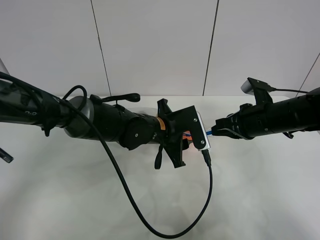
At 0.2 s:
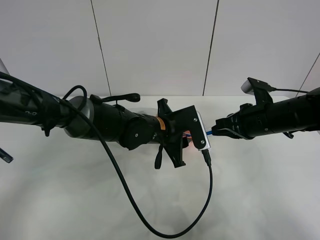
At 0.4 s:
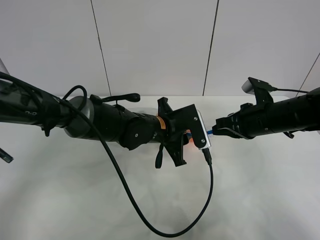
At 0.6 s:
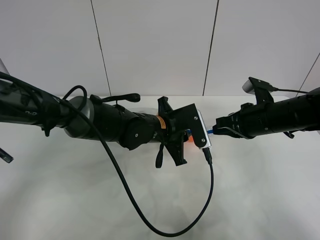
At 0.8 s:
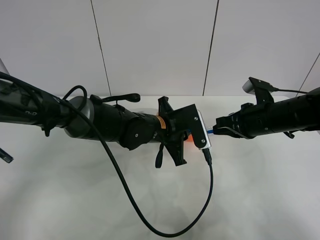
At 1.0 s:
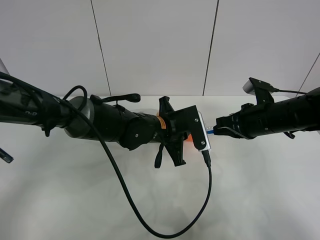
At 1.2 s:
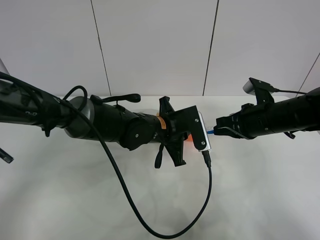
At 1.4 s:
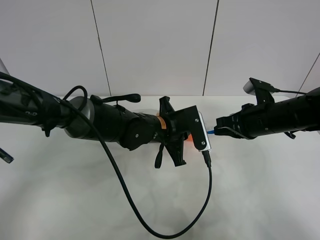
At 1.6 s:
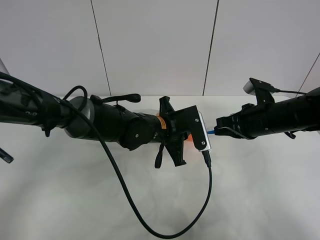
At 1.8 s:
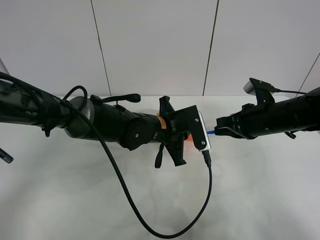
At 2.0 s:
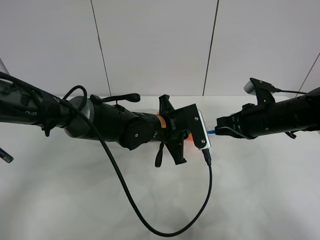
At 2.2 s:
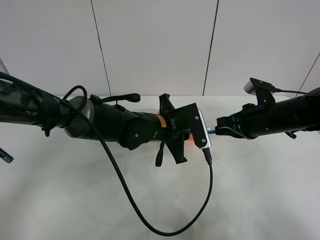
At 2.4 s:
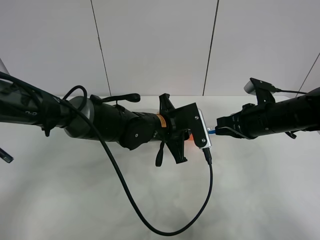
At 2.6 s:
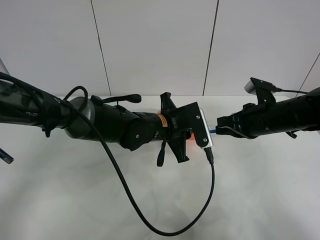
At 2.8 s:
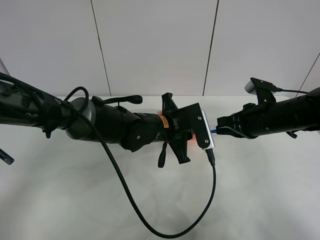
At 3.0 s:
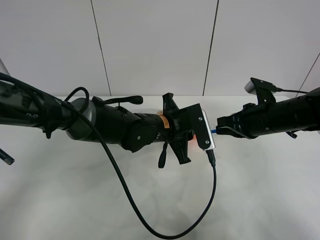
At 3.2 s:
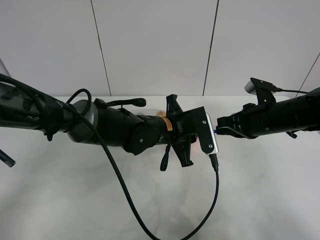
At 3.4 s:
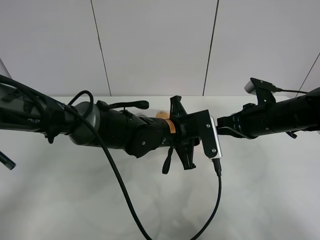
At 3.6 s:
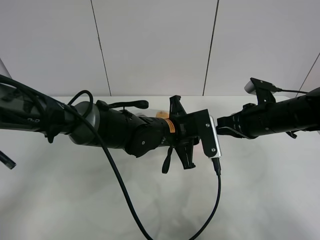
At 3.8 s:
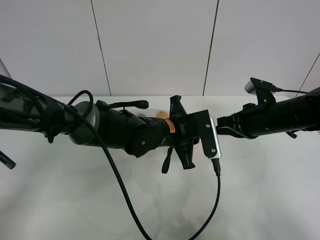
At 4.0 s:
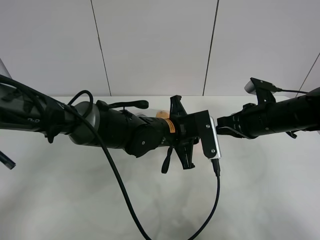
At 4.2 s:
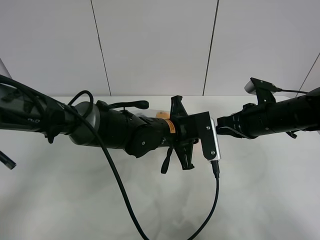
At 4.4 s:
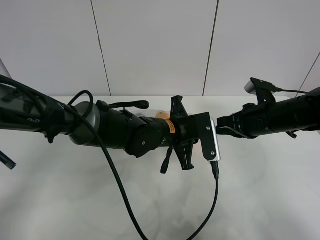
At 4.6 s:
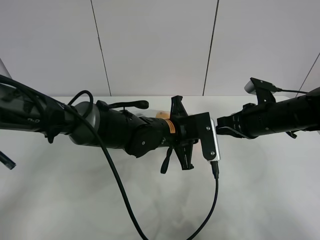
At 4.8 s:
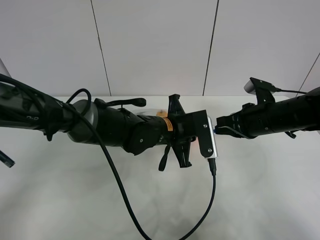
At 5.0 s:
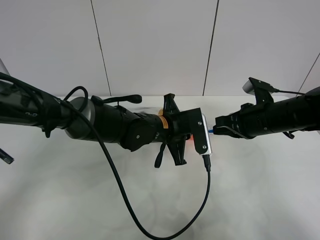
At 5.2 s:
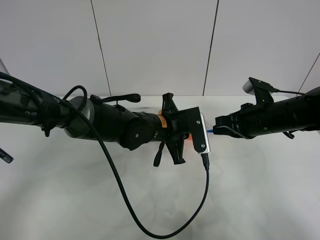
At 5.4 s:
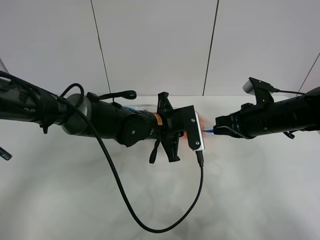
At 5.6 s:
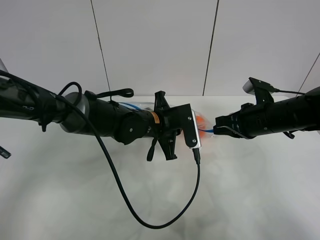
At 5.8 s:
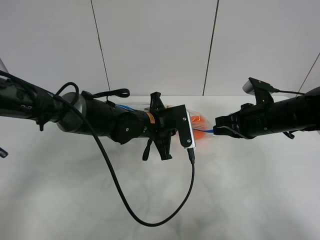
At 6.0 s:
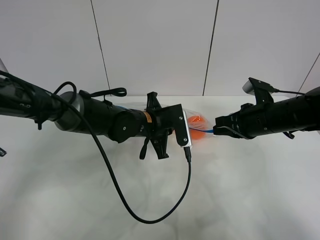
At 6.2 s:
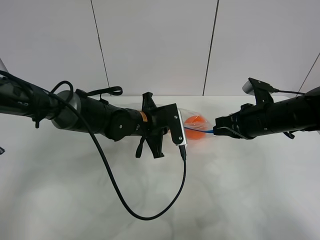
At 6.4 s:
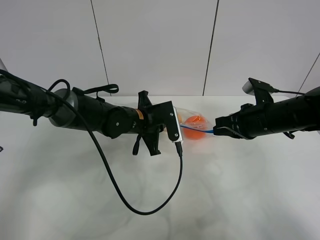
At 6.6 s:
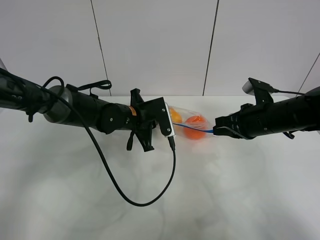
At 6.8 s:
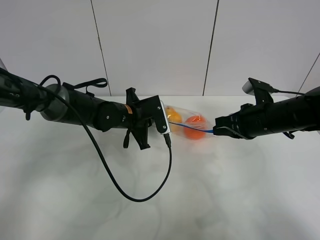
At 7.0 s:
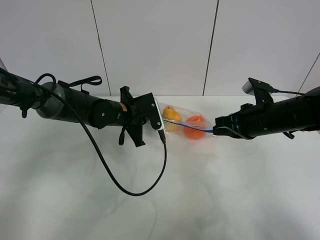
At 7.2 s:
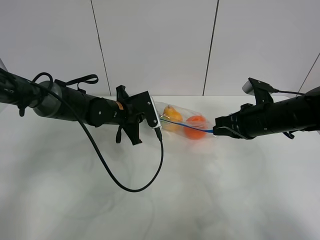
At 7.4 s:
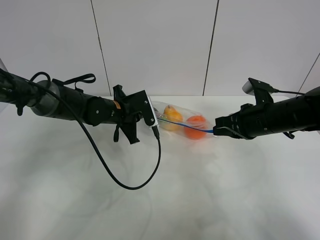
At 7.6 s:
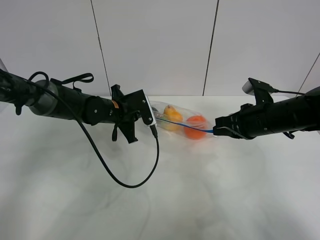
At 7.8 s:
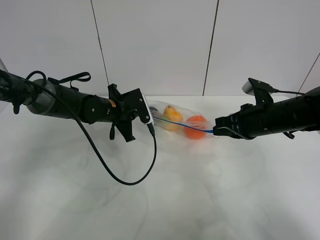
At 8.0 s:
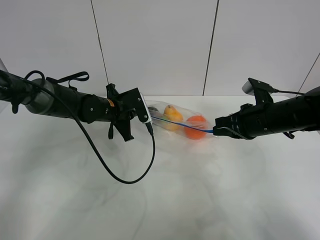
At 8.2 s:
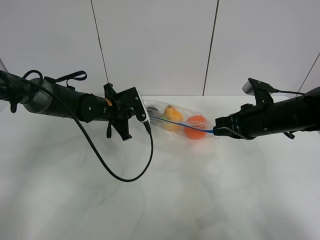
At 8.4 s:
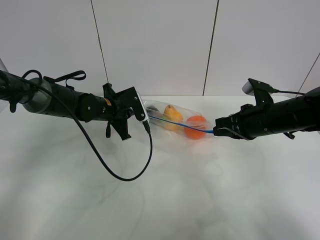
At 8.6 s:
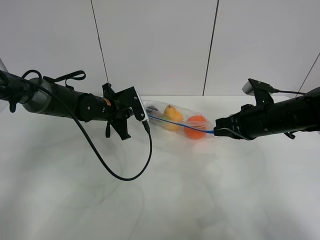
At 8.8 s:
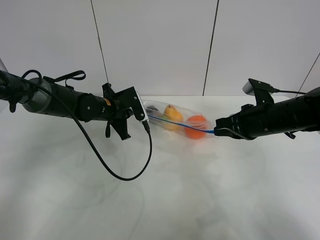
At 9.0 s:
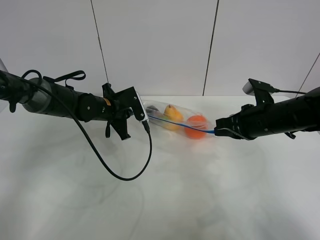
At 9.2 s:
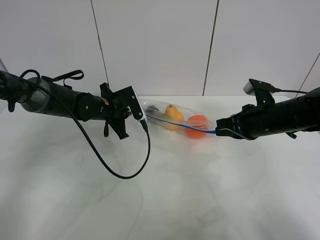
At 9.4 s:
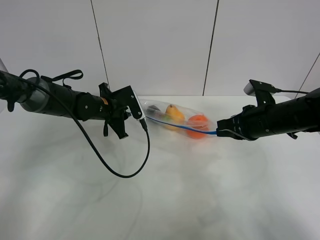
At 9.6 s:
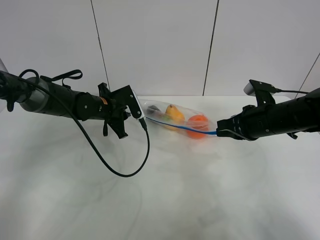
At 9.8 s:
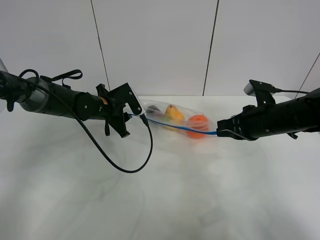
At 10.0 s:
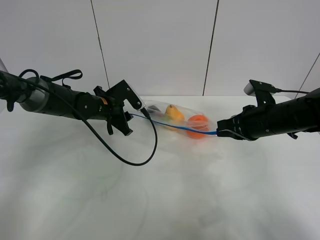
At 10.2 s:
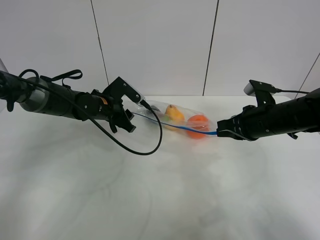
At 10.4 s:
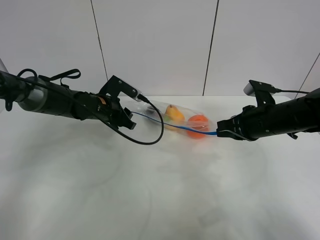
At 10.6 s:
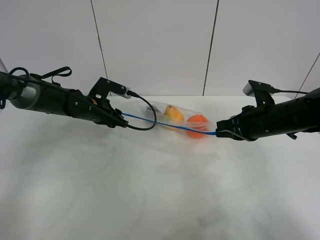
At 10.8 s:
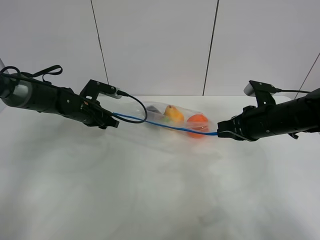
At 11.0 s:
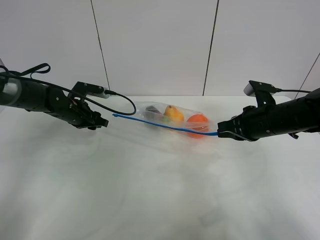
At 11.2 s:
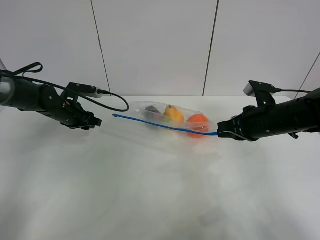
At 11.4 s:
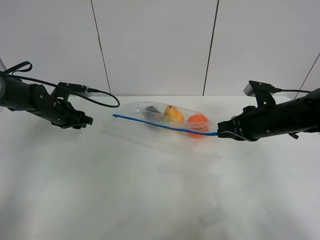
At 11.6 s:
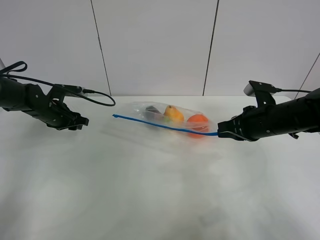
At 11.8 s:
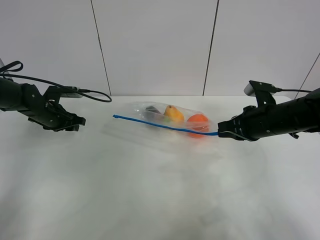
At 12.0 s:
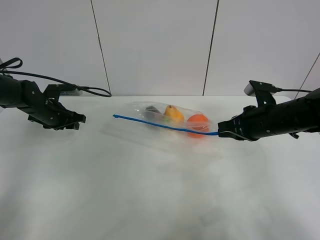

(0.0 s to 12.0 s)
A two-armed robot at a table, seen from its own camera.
Step, 0.0 s - 10.6 s: Pull the fruit bag with left gripper.
0.0 s - 1.6 s: The left gripper closes.
1.6 s - 3.0 s: Neither gripper changes place.
3.0 s - 4.4 s: The grippers make only small movements.
4.4 s - 6.0 s: The left gripper travels to the left by some 5 cm.
6.0 s - 7.6 s: The left gripper moves to the left, approximately 10 cm.
7.6 s - 9.0 s: The grippers make only small movements.
9.0 s - 10.4 s: The left gripper opens up.
10.4 s - 12.0 s: The left gripper is displaced to the left by approximately 15 cm.

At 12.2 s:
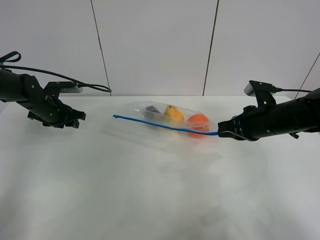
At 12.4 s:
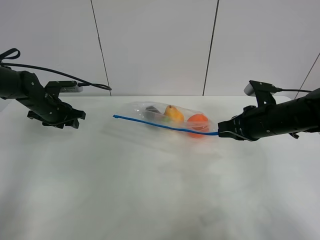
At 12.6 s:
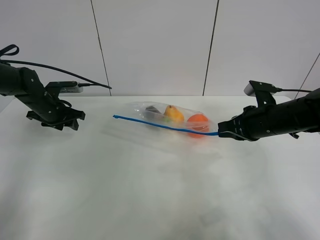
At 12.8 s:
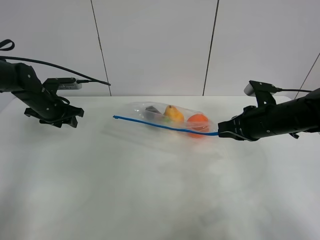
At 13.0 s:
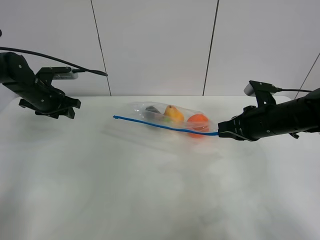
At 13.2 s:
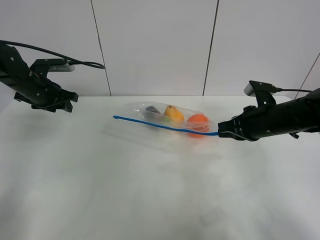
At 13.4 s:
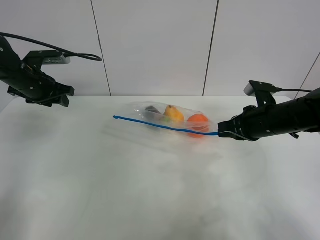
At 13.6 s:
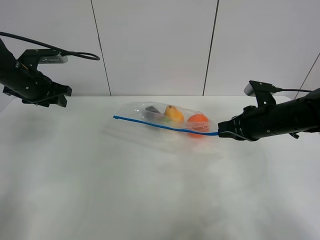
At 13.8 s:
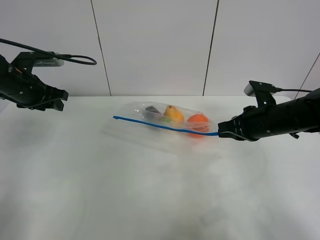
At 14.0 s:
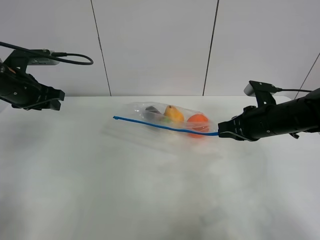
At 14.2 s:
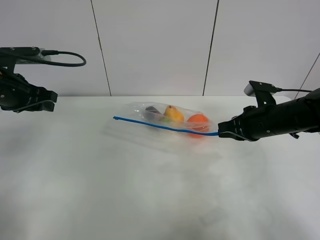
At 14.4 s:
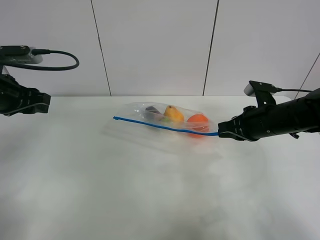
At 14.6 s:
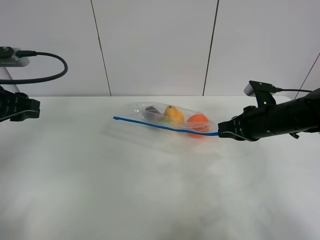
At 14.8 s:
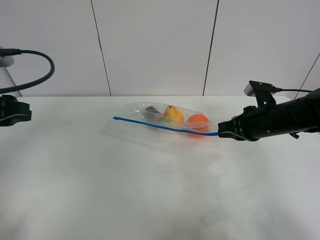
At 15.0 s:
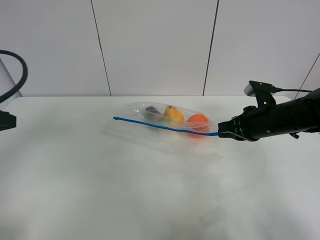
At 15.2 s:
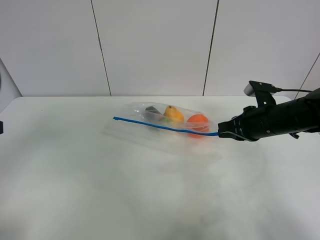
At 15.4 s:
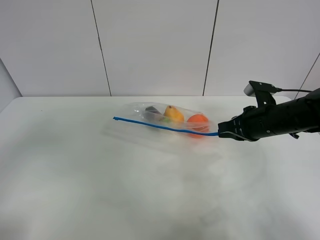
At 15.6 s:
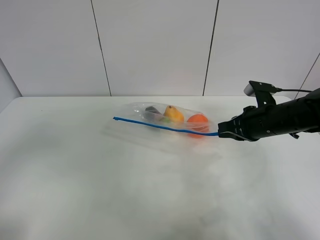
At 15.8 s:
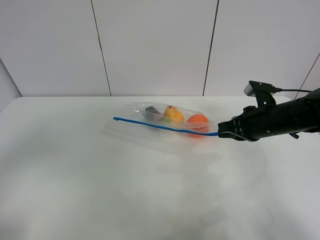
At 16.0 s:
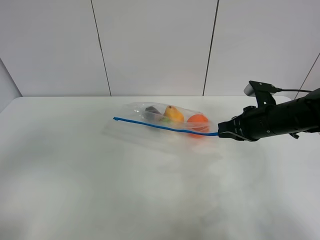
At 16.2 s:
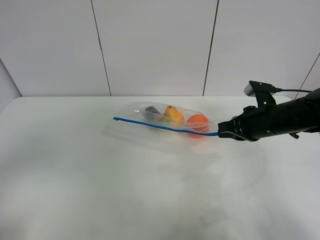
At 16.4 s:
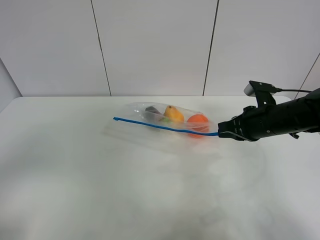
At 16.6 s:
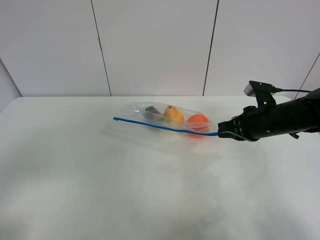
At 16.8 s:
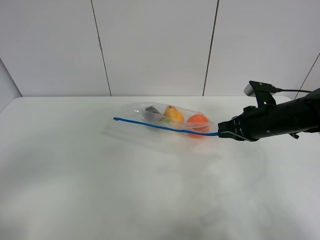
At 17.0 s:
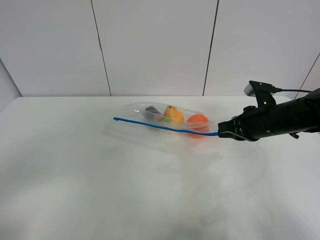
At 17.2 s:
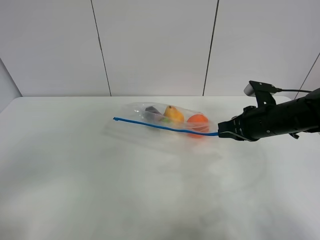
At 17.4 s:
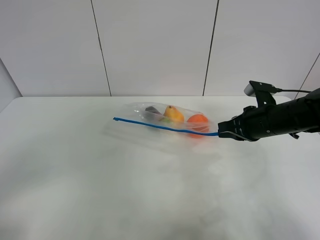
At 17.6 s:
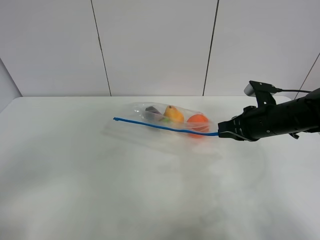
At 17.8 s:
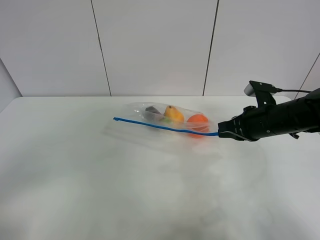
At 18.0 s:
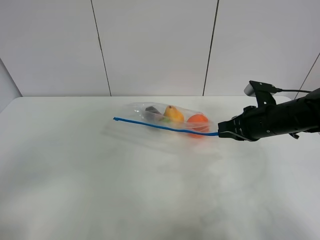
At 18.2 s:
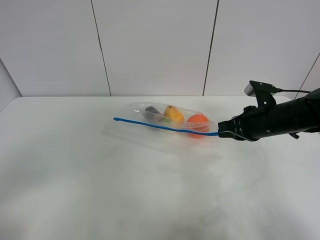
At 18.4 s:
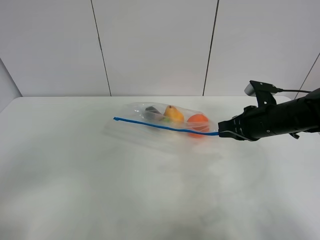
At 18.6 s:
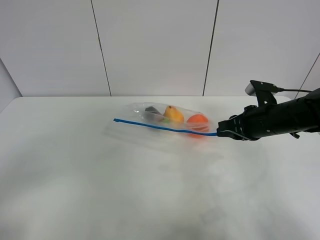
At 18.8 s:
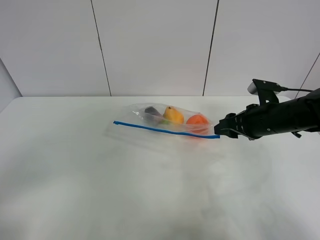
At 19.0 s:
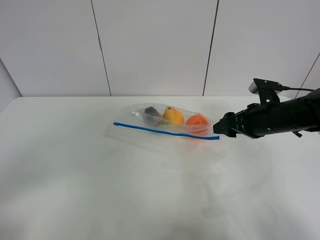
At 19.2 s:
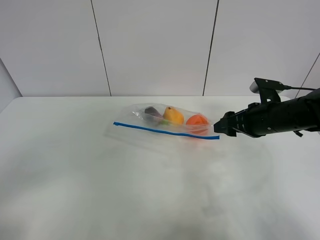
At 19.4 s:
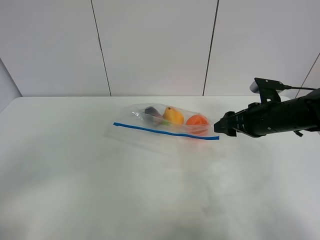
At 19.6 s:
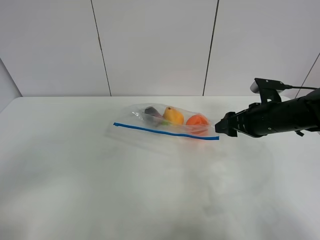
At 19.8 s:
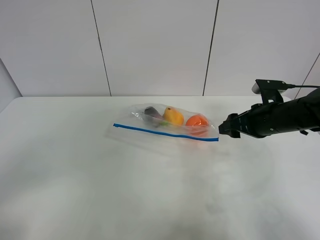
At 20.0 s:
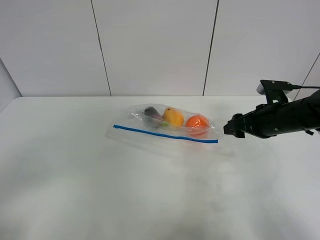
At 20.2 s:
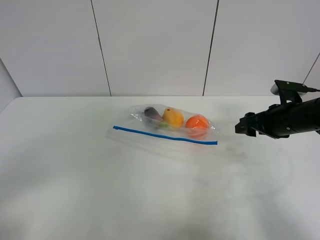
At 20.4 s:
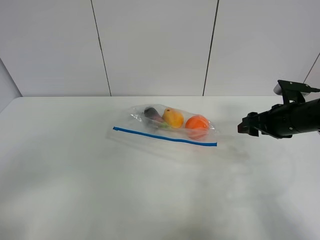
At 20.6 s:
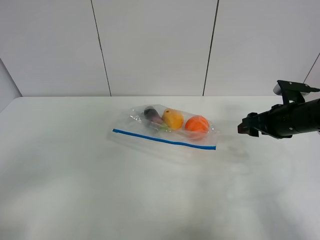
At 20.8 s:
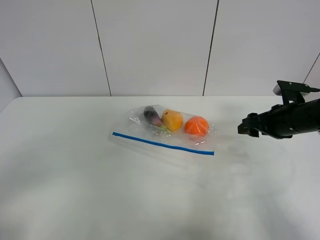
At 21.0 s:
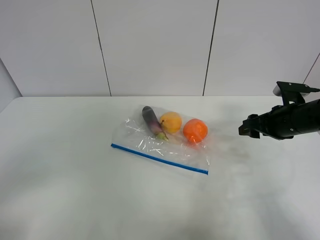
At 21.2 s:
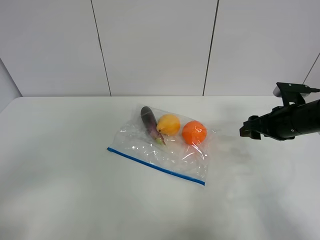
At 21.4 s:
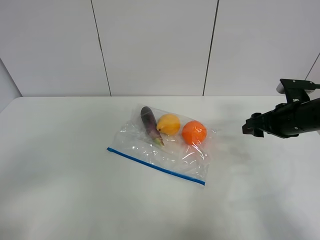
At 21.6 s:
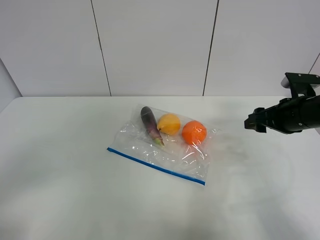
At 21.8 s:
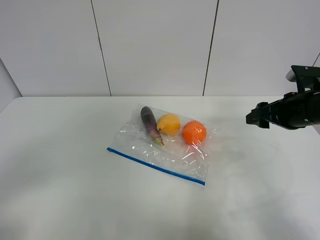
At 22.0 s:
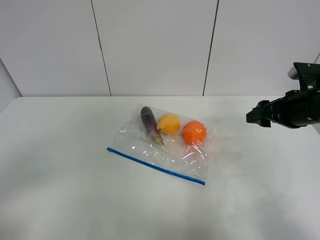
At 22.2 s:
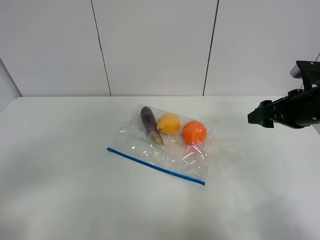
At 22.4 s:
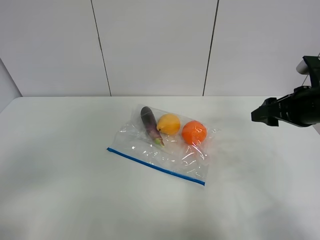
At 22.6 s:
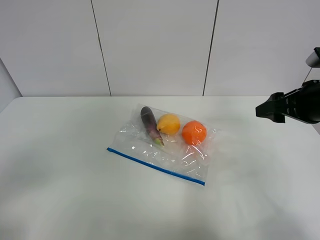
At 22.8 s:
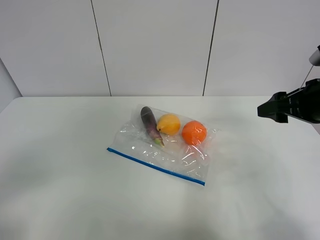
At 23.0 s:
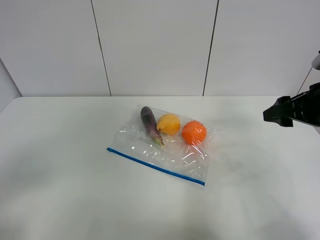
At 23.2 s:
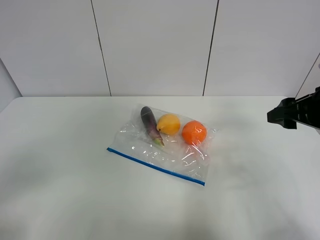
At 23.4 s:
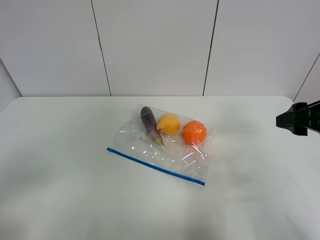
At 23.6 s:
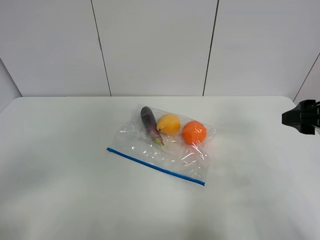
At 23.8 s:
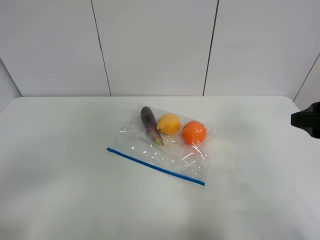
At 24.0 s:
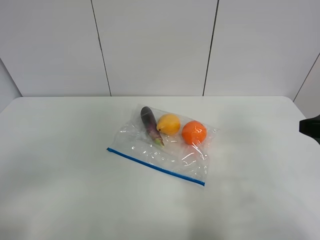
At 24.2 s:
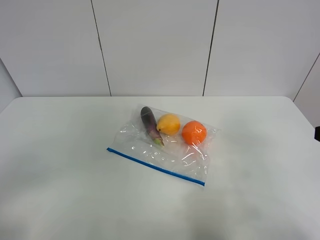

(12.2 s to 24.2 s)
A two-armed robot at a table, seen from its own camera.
12.2 s - 13.8 s: The left gripper travels upward and backward by some 10 cm.
13.8 s - 15.2 s: The left gripper is displaced backward by roughly 20 cm.
18.2 s - 19.8 s: The right gripper opens its fingers.
19.8 s - 21.2 s: The grippers move only a little.
21.2 s - 22.6 s: The right gripper is displaced upward and backward by roughly 10 cm.
22.6 s - 24.2 s: The right gripper is displaced backward by roughly 15 cm.
